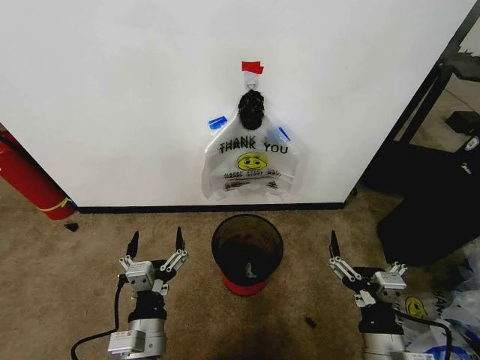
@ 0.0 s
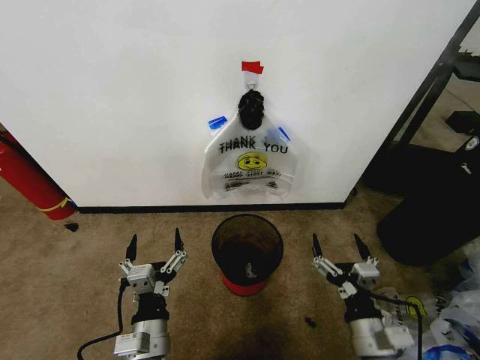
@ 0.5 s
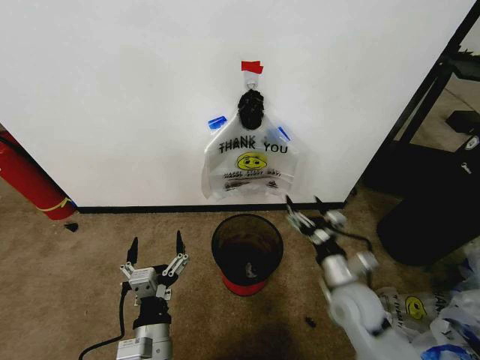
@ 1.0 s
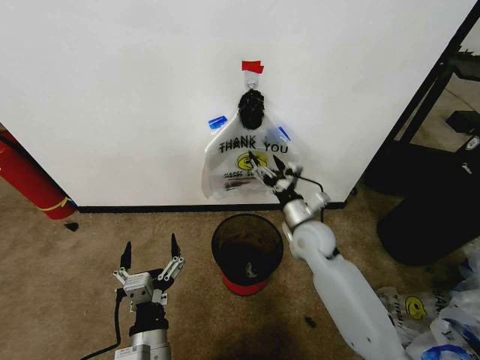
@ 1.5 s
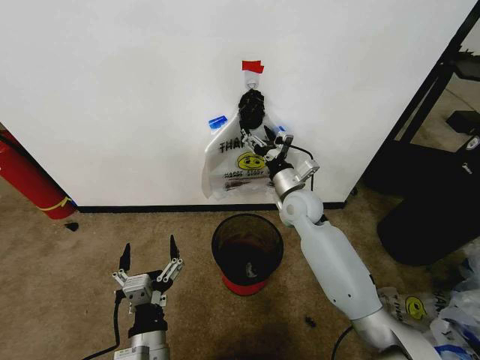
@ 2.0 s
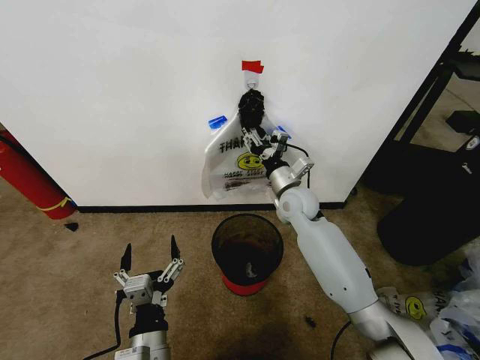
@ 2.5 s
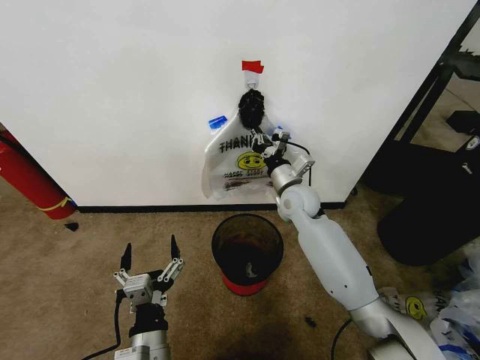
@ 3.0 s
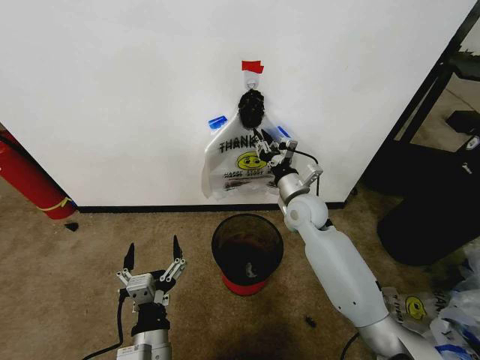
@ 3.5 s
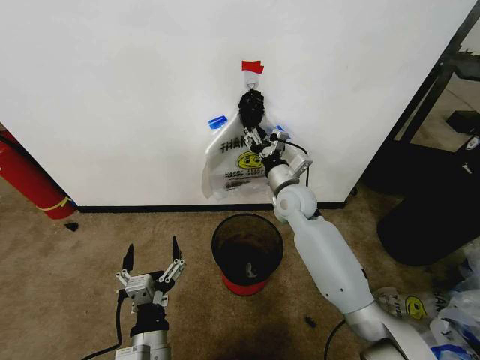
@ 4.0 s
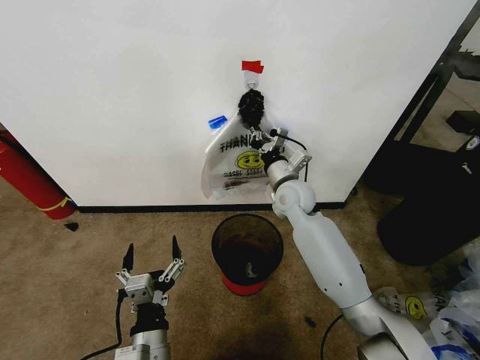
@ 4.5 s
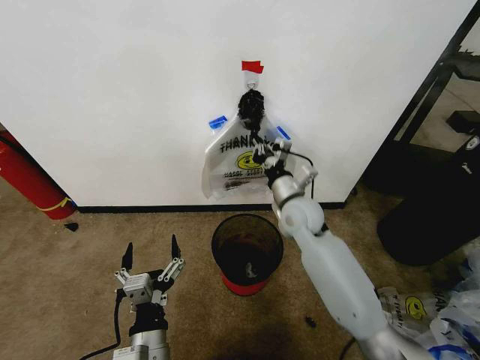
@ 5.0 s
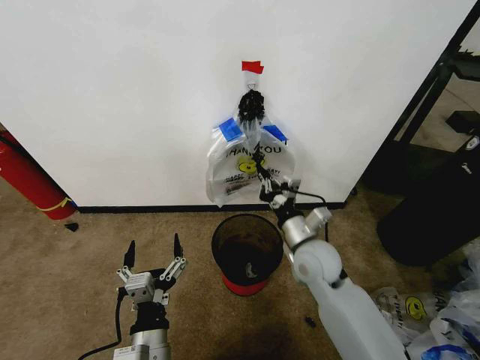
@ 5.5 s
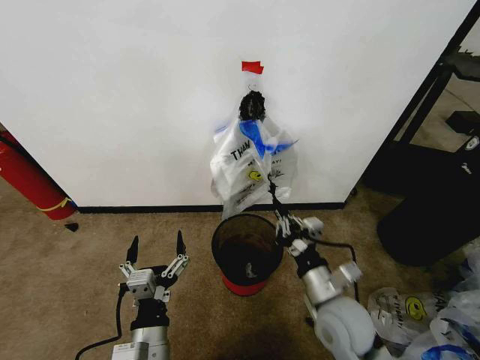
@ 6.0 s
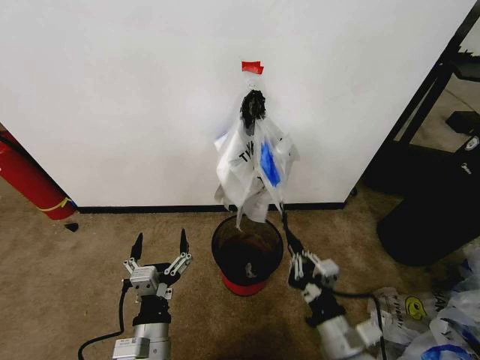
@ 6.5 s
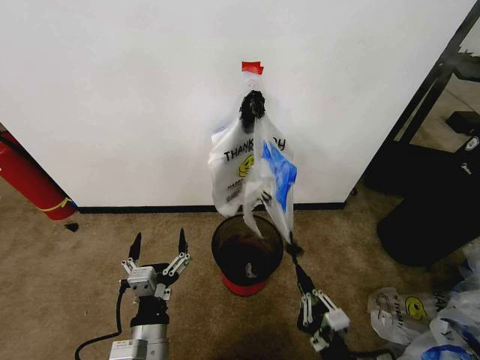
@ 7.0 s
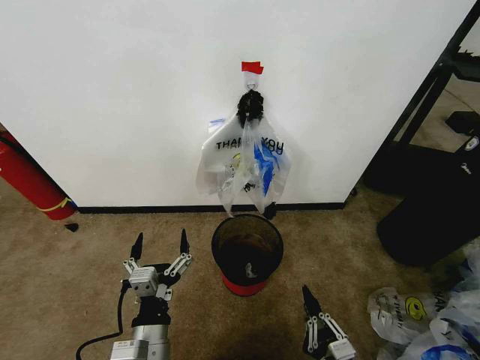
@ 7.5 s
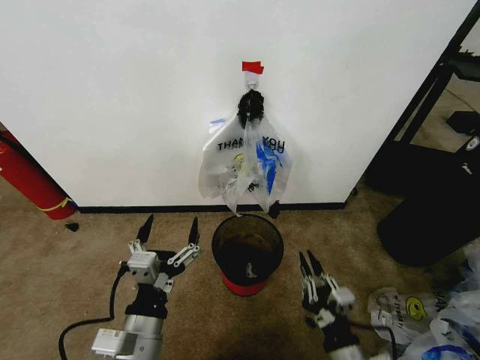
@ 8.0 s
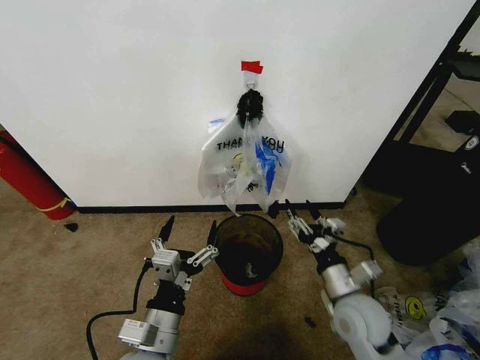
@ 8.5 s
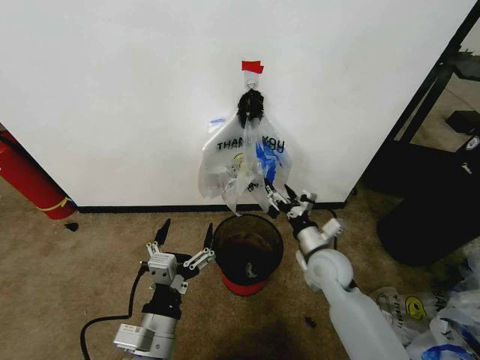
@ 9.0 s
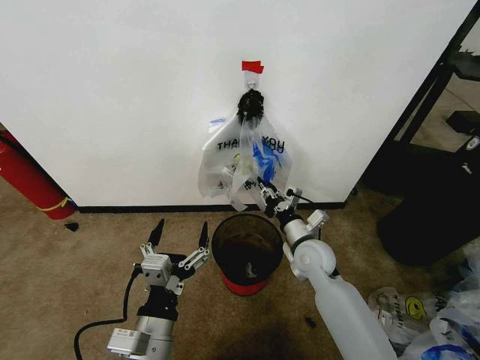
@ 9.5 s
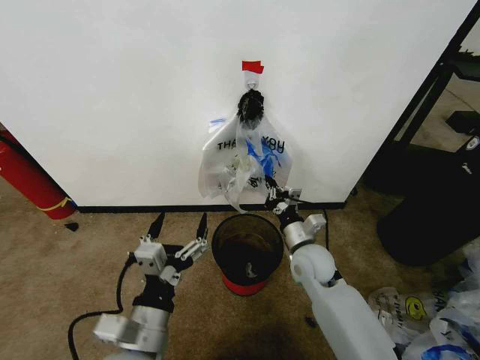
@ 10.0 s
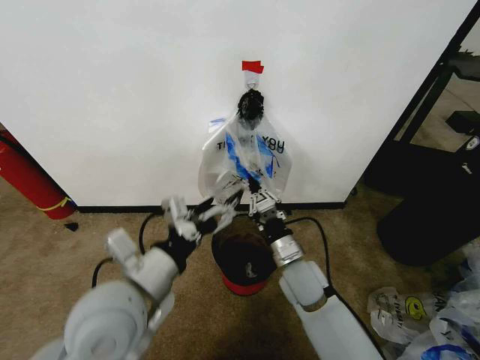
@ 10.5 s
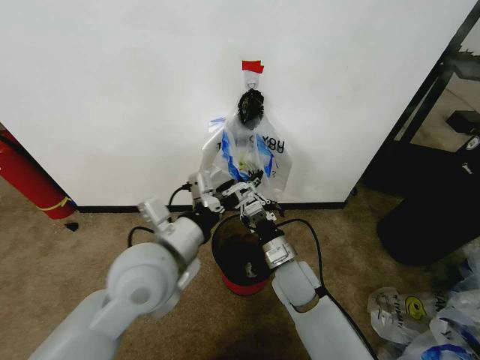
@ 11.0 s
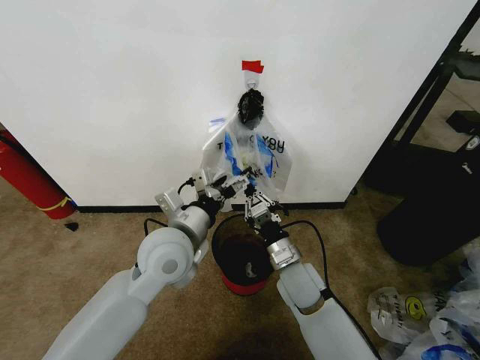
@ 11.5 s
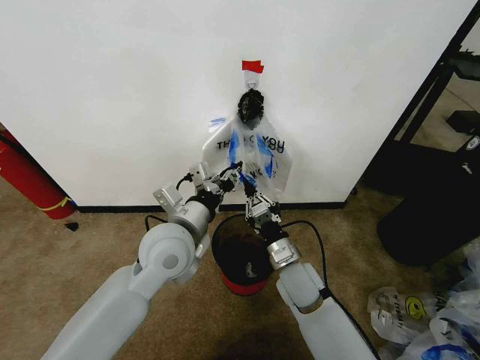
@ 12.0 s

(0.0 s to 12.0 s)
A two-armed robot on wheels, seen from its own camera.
Task of the whole recording: Pick up the garbage bag from the wall and place it over the trash bin.
2.0 s - 4.0 s: The right gripper closes its fingers.
4.0 s - 6.0 s: The right gripper goes about 25 cm backward, and closes.
6.0 s - 8.0 s: The right gripper shifts some 15 cm backward and downward. The left gripper goes some 5 cm upward.
8.0 s - 10.0 s: The right gripper moves forward, about 25 cm, and opens, then closes again.
10.0 s - 12.0 s: The left gripper heads forward and upward, covering roughly 20 cm, and closes up. The right gripper moves about 5 cm.

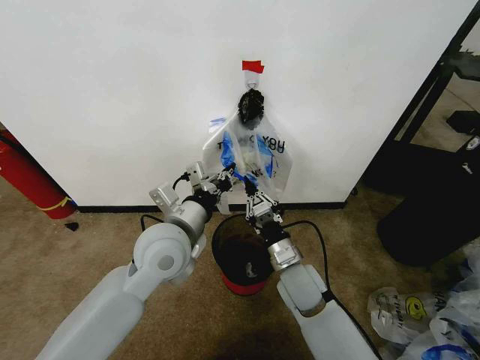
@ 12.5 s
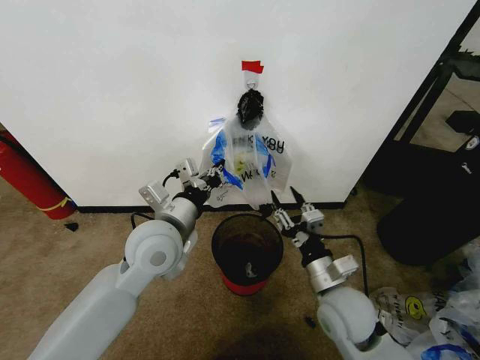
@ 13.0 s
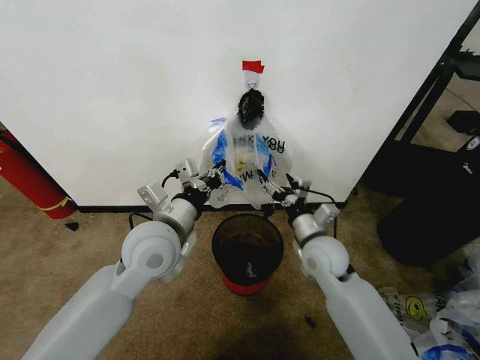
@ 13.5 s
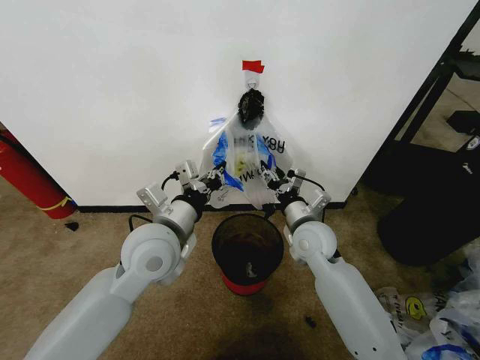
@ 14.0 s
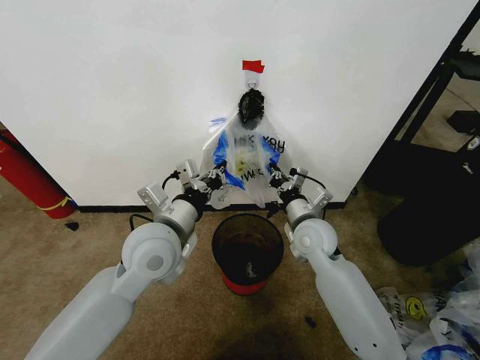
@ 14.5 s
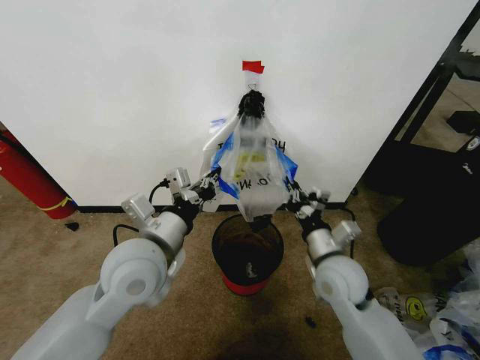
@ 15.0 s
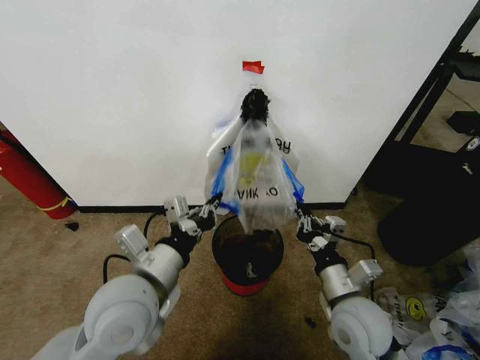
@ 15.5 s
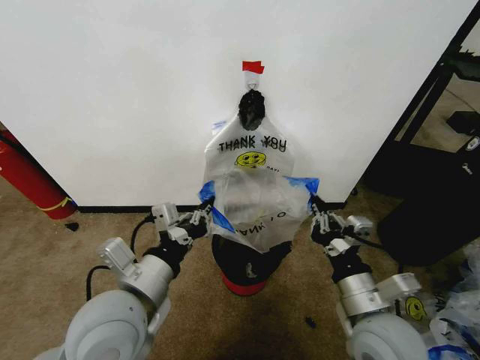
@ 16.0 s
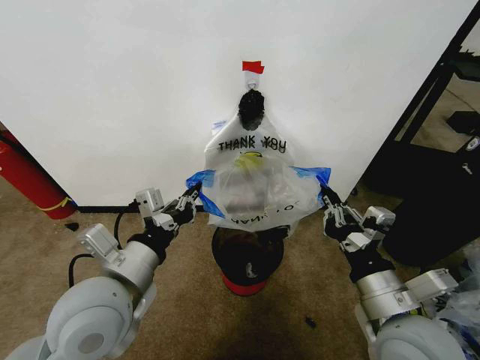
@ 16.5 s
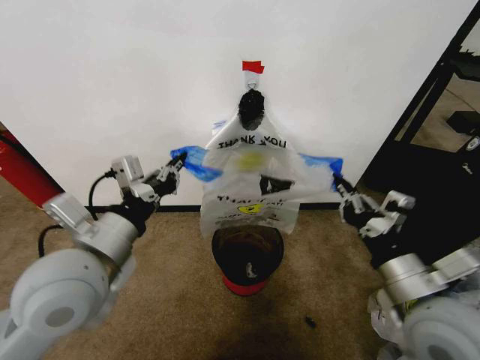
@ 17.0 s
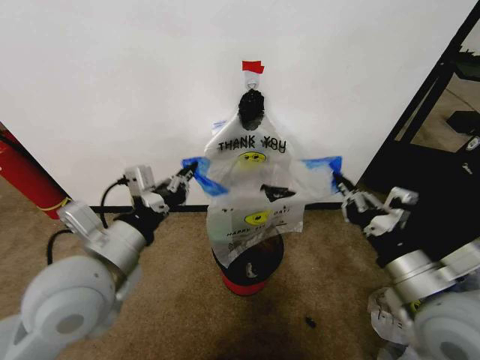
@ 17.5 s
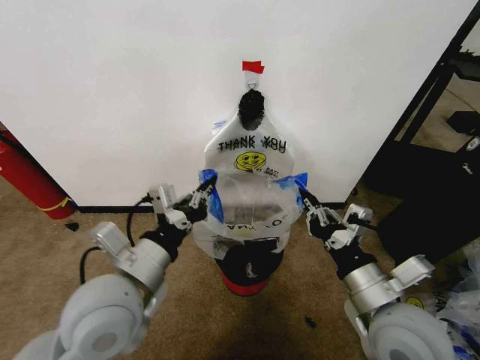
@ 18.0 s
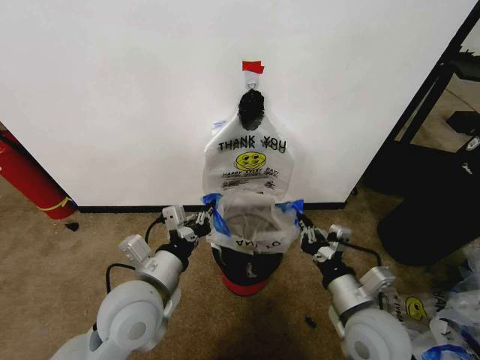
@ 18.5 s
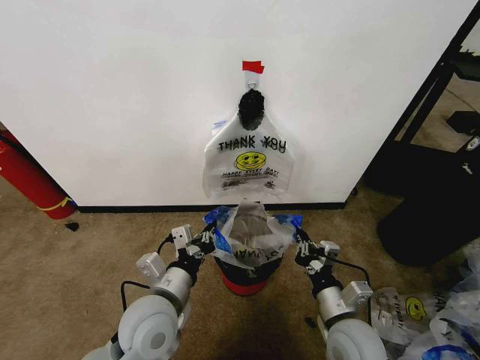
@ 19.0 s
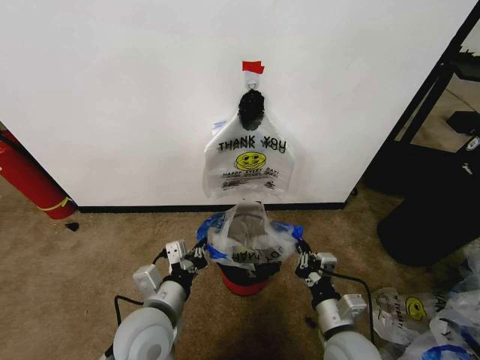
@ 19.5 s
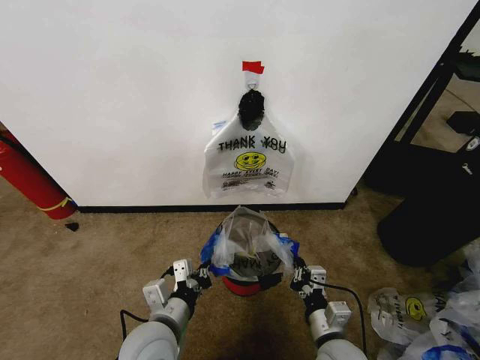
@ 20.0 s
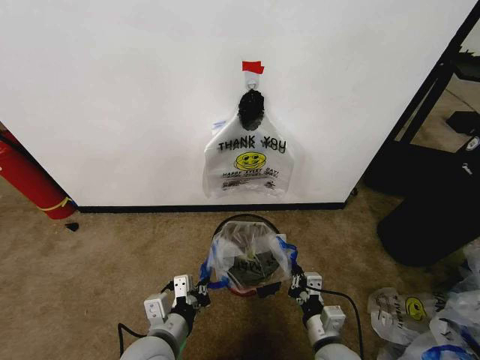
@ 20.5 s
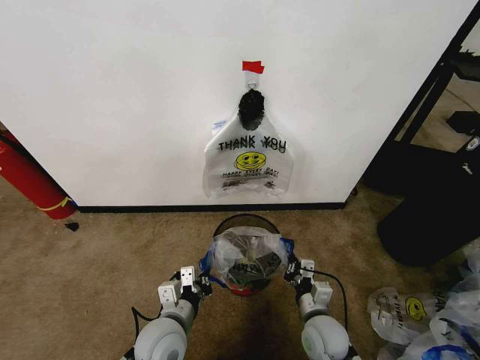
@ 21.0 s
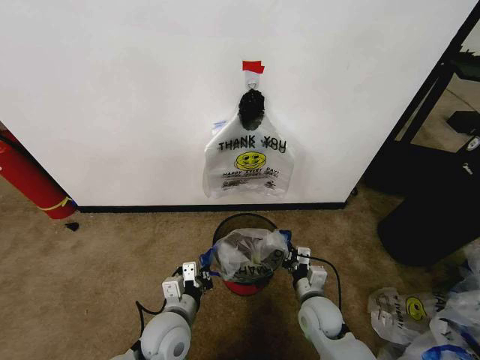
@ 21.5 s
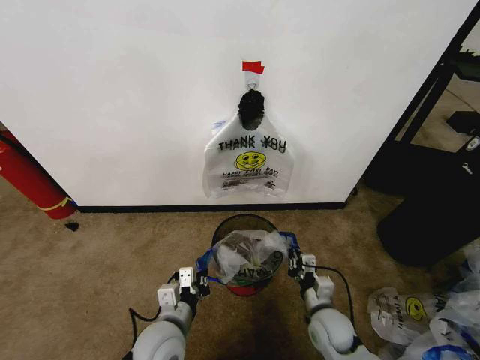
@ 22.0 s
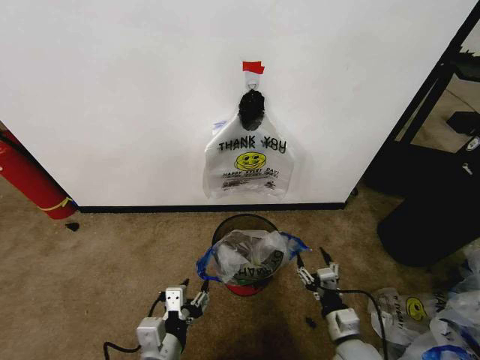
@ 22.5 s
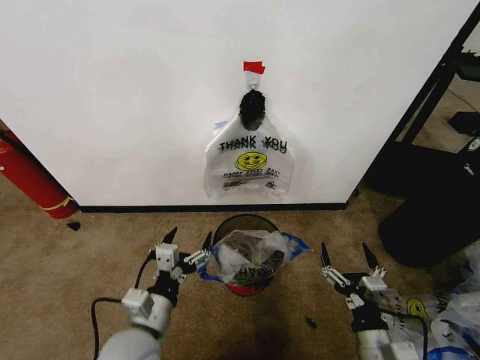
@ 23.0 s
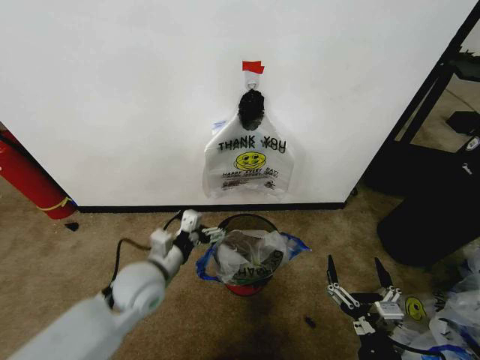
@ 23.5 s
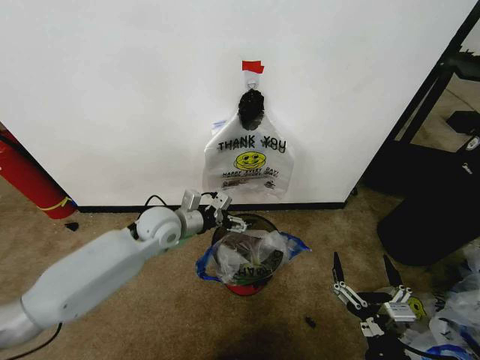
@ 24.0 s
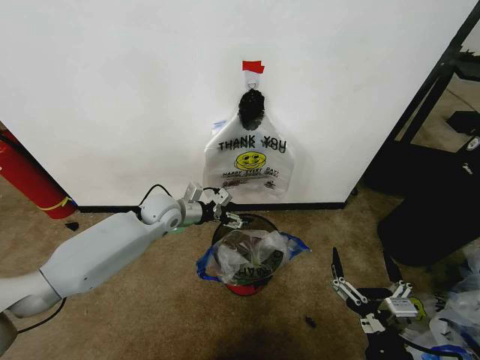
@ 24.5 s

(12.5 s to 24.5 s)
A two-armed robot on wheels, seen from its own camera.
Task of the whole recording: Pick up the garbage bag from the wall and place it over the trash bin.
12.5 s - 14.5 s: The right gripper heads forward and upward, covering some 10 cm, and opens, then closes once more.
14.5 s - 16.5 s: The right gripper heads backward, covering some 25 cm. Meanwhile the left gripper goes about 10 cm backward.
16.5 s - 18.5 s: The two grippers go roughly 5 cm downward.
18.5 s - 20.5 s: The right gripper moves downward, approximately 15 cm. The left gripper goes roughly 10 cm downward and backward.
20.5 s - 22.5 s: The left gripper opens up, while the right gripper is displaced to the right by approximately 5 cm, reaches about 10 cm forward, then returns, and opens up.
22.5 s - 24.5 s: The right gripper is displaced upward and backward by about 15 cm. The left gripper shifts about 35 cm forward.

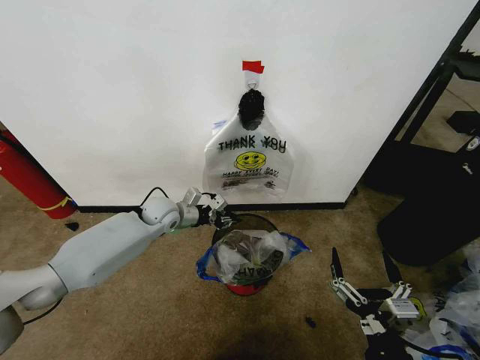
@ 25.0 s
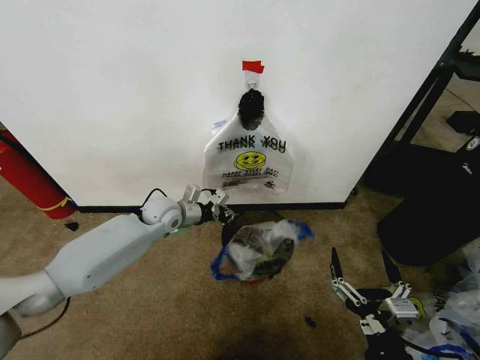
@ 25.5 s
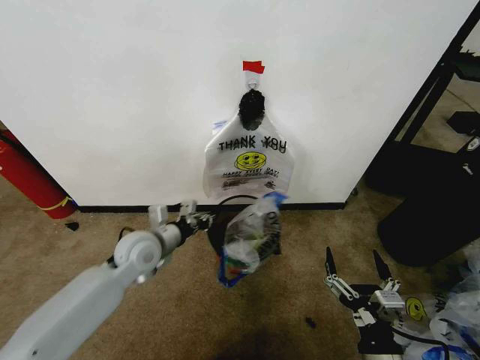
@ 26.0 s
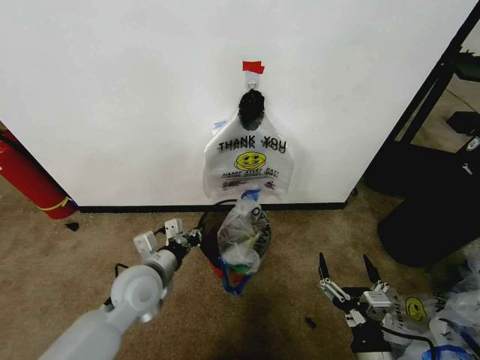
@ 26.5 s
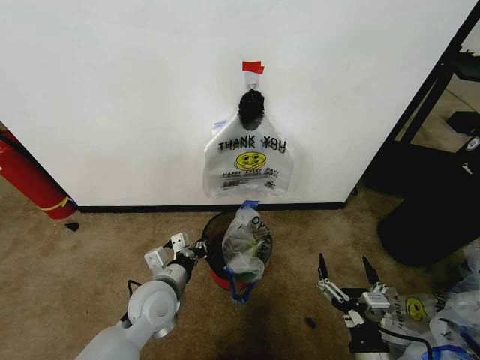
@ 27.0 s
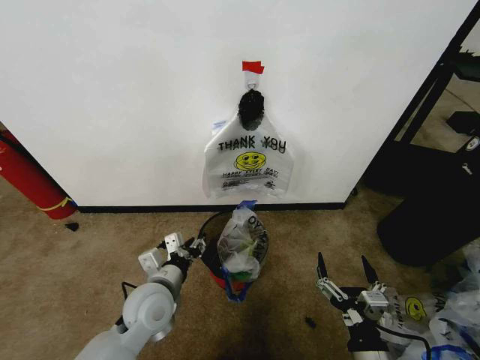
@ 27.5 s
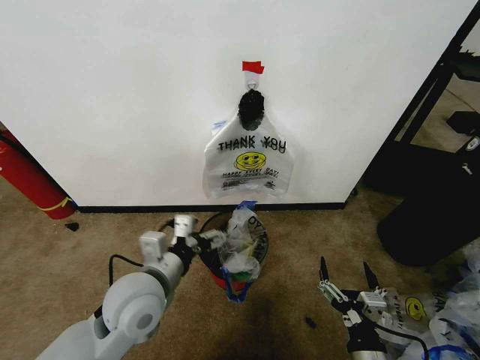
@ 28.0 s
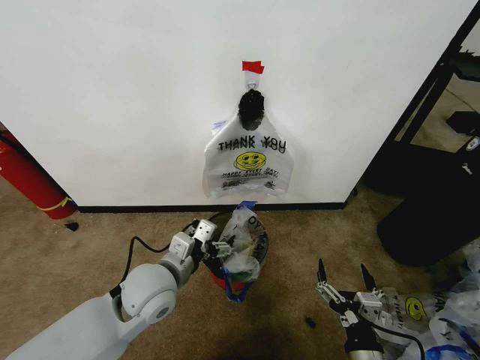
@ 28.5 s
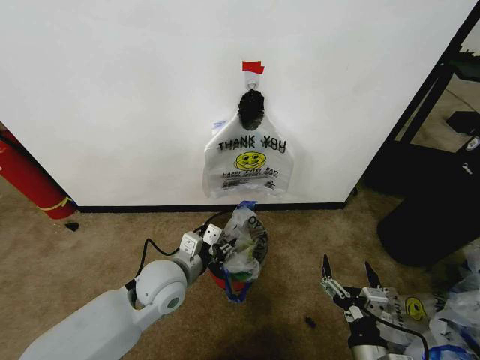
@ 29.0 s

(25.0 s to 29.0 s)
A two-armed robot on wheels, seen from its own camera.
Task of the whole recording: Pick up the garbage bag from the wall and place it over the trash bin.
25.0 s - 27.0 s: The left gripper is displaced backward by about 20 cm.
27.0 s - 29.0 s: The left gripper opens up.
